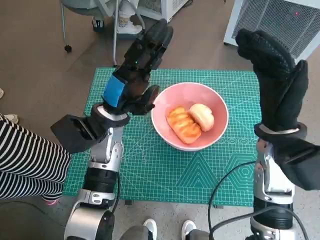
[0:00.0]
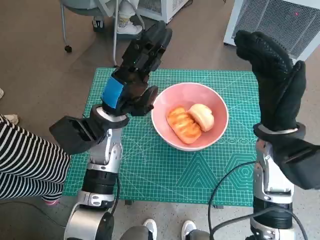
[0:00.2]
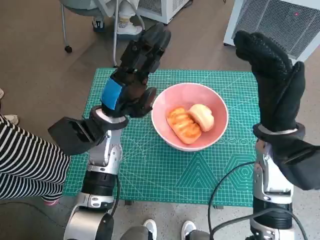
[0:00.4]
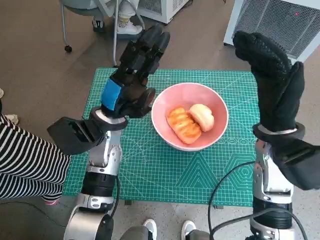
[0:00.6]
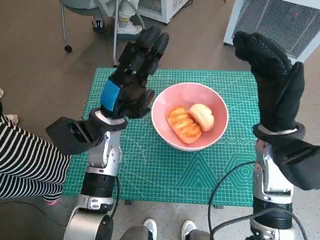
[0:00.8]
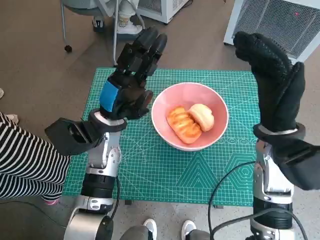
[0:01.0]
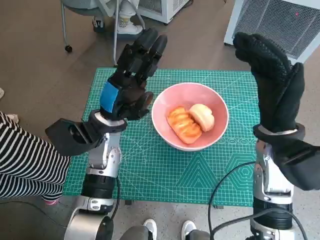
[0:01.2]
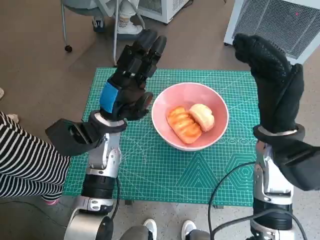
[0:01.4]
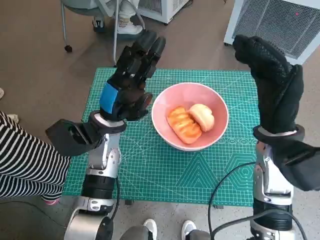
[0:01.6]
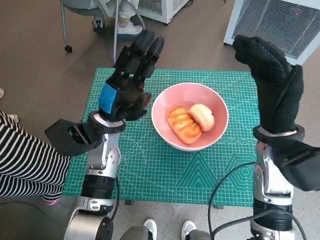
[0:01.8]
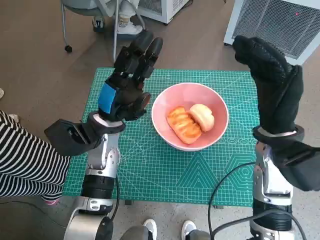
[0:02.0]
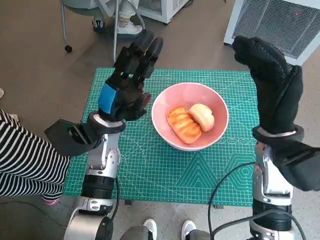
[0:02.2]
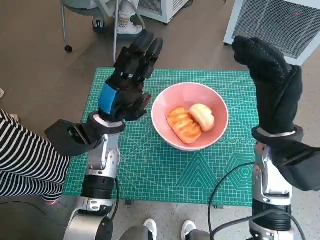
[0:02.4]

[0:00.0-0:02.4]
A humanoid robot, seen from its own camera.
Task of the whole recording: Push the bowl into the center of the table and put the bread into the bowl.
0:00.0 to 0:01.2: There are only small adjustments of the hands.
0:01.2 to 0:02.4: Both hands stay about where they are.

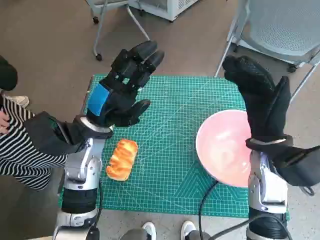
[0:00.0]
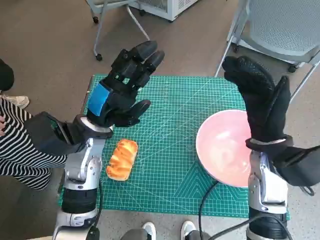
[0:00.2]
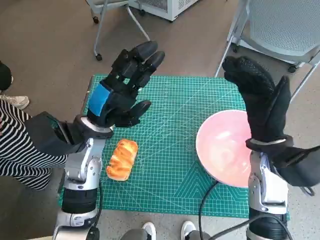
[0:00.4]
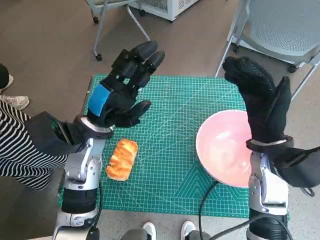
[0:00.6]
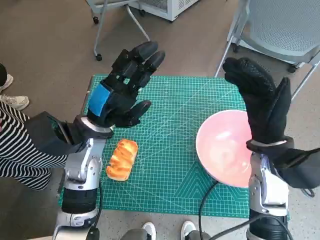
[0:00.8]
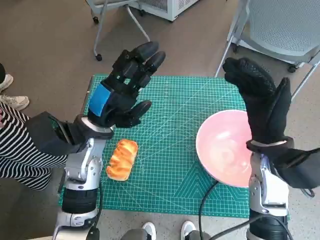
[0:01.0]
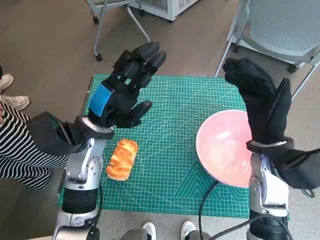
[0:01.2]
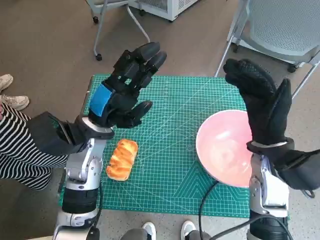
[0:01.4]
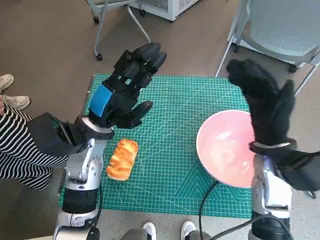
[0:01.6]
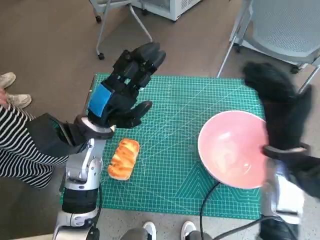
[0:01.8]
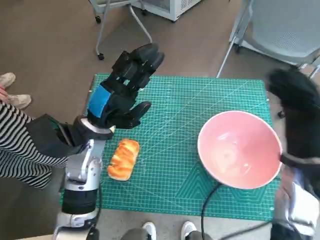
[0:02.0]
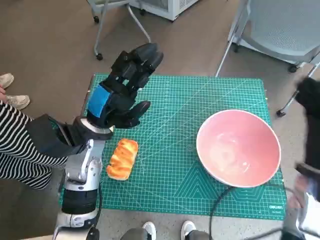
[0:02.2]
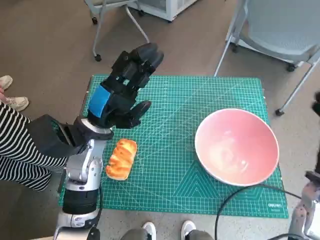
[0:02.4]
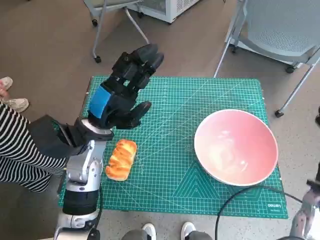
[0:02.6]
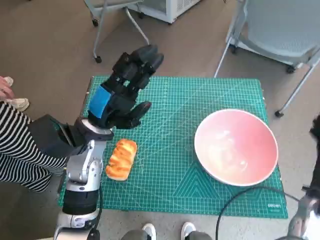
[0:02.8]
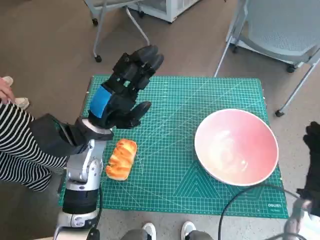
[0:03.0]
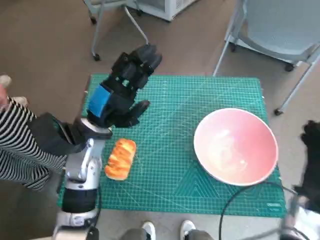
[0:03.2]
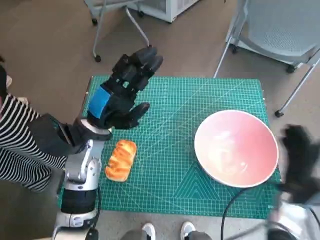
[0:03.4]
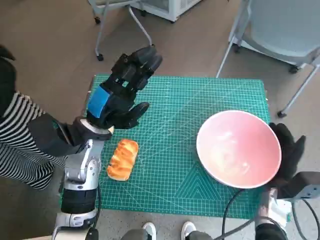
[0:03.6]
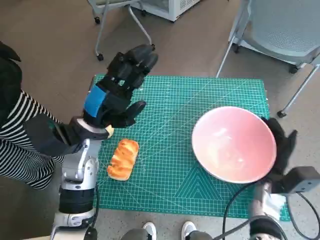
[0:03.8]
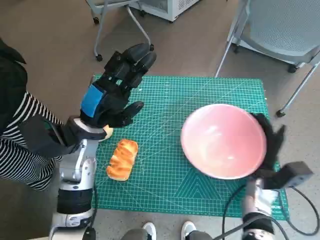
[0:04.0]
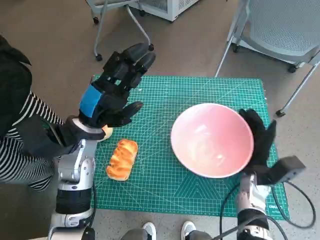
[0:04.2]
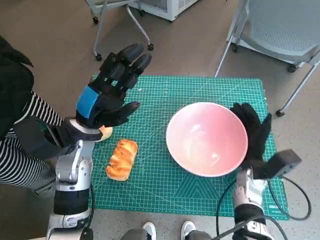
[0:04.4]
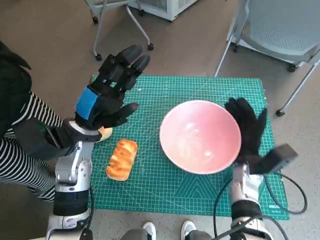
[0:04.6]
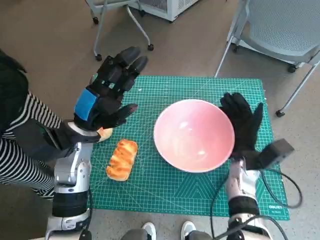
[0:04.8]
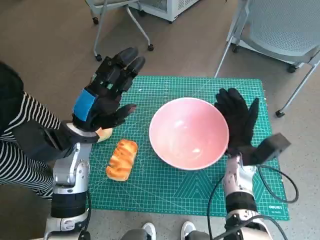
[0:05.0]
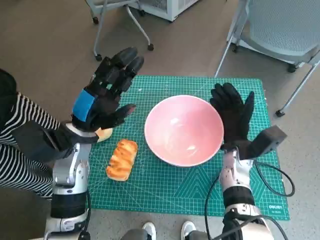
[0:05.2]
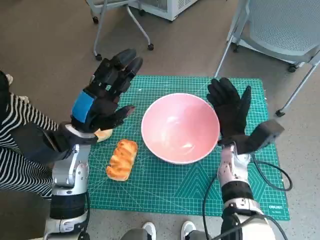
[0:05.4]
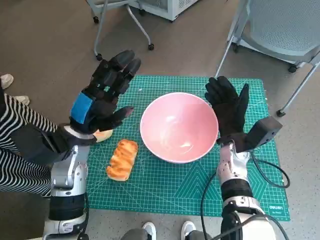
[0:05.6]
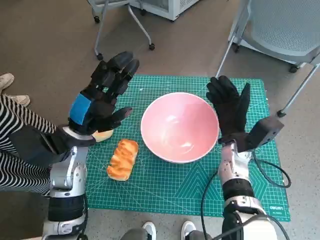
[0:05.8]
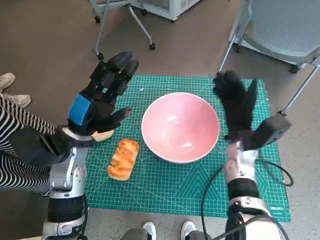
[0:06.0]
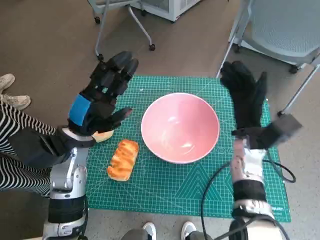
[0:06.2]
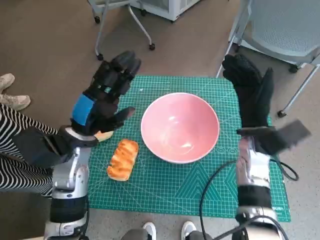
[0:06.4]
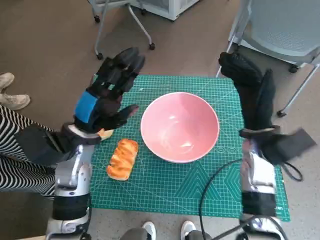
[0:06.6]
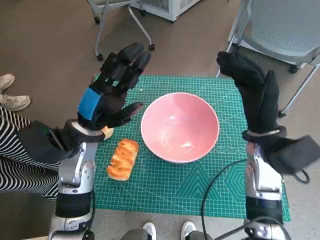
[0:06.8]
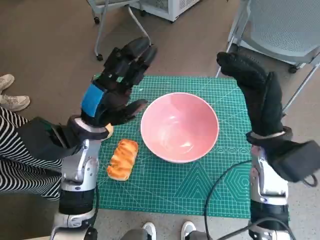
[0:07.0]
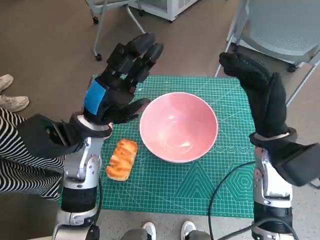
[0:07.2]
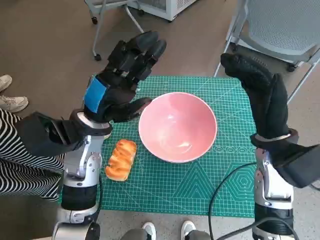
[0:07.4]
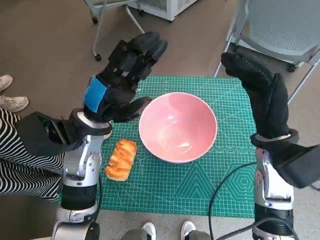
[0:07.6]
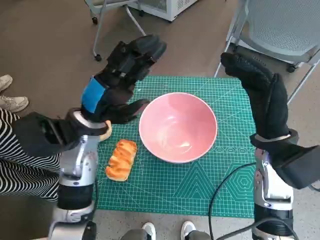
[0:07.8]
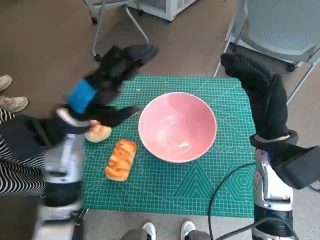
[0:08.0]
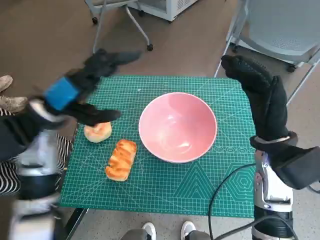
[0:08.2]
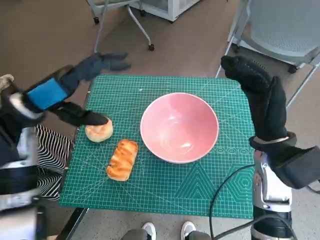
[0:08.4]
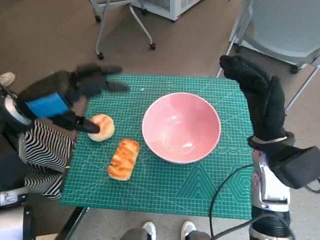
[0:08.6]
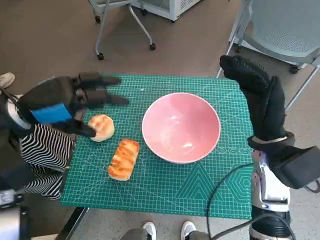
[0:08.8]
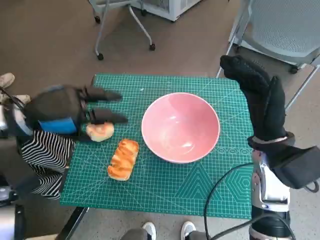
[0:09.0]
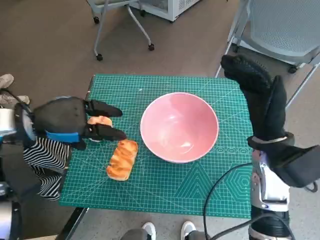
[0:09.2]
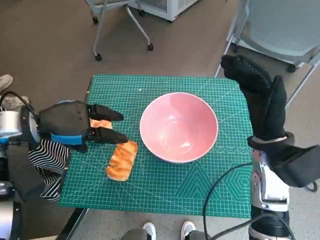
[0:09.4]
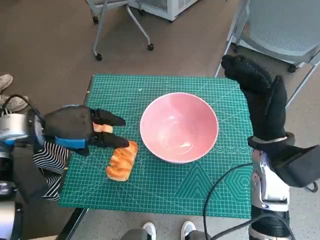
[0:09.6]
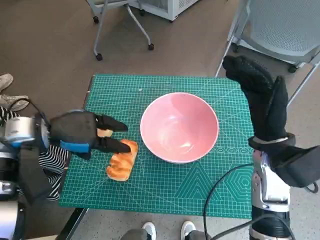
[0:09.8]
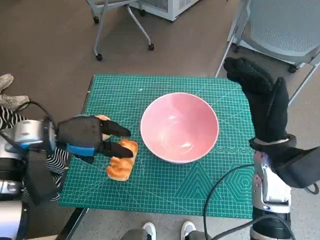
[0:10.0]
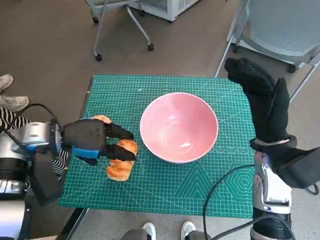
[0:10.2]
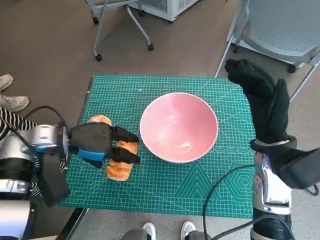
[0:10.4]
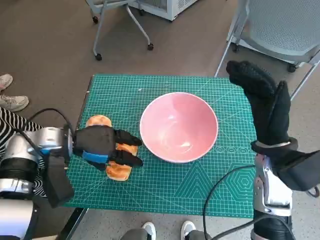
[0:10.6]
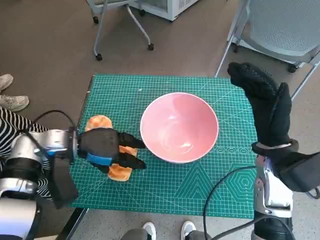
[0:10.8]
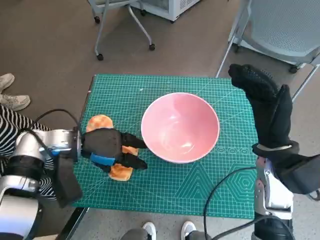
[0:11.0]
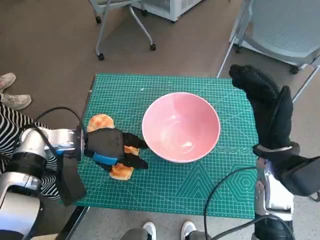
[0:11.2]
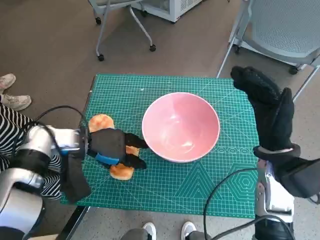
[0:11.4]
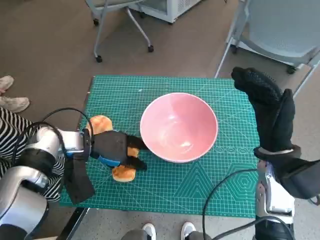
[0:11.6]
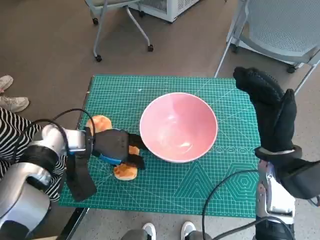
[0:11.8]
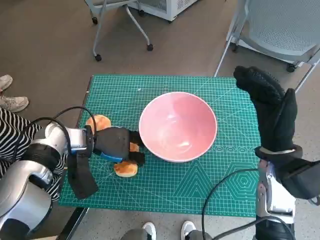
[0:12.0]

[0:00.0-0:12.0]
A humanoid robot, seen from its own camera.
Task of the whole recording: Push the bowl into the center of the table and put the bread into the bowl.
Step, 0:00.0 to 0:06.0: Move the pink bowl to the center of table with right hand.
0:01.6 to 0:03.0: The right hand is displaced to the right, downward and backward by roughly 15 cm.
0:03.0 to 0:04.4: The right hand goes roughly 10 cm to the left and forward.
0:04.4 to 0:06.0: The right hand goes roughly 5 cm upward.
0:06.0 to 0:07.6: The left hand shifts by roughly 5 cm. Meanwhile the right hand is displaced upward and backward by roughly 10 cm.
0:07.6 to 0:09.0: The left hand heads to the left, covering roughly 10 cm.
0:09.0 to 0:10.4: The left hand heads downward, covering some 5 cm.
0:10.4 to 0:12.0: The left hand is displaced downward by approximately 5 cm.

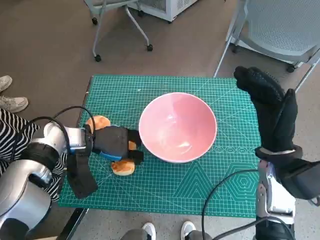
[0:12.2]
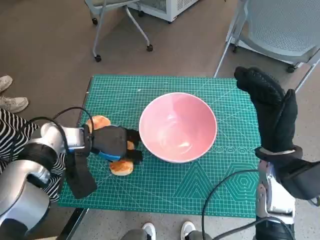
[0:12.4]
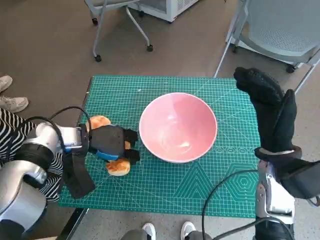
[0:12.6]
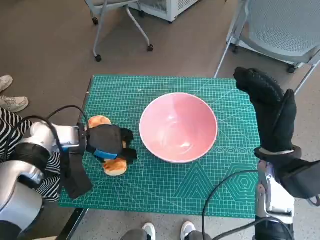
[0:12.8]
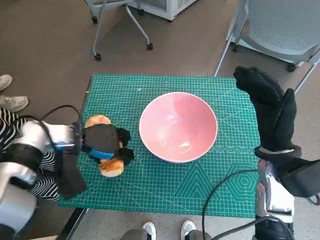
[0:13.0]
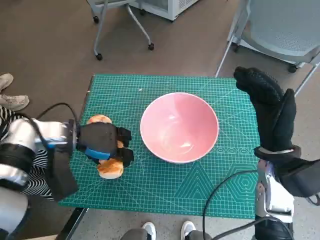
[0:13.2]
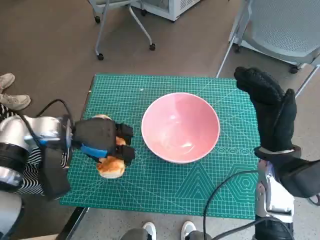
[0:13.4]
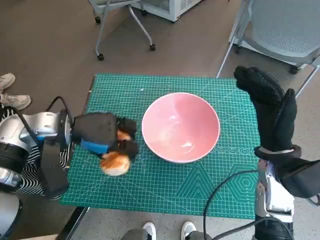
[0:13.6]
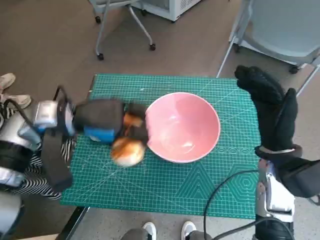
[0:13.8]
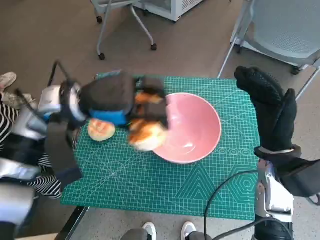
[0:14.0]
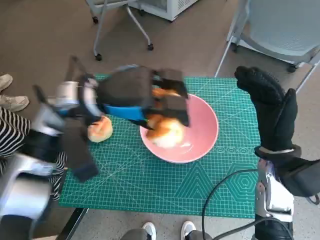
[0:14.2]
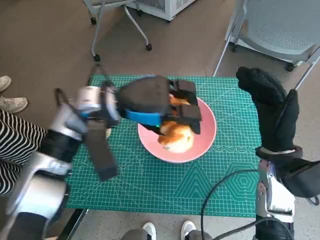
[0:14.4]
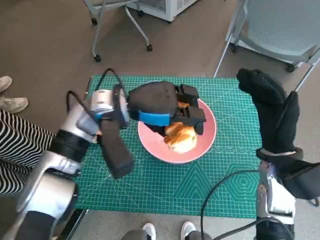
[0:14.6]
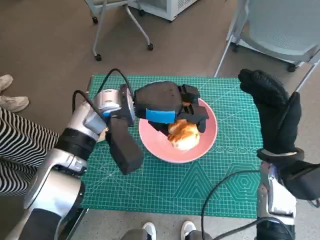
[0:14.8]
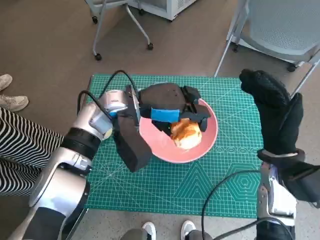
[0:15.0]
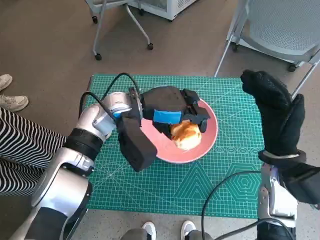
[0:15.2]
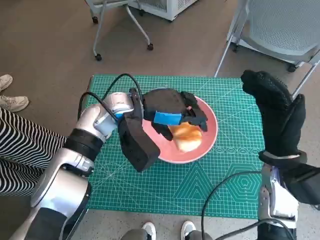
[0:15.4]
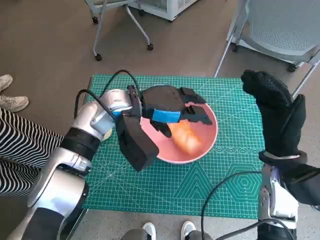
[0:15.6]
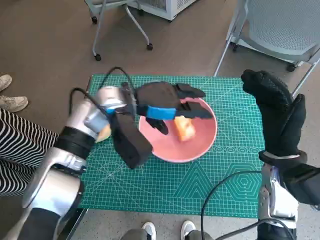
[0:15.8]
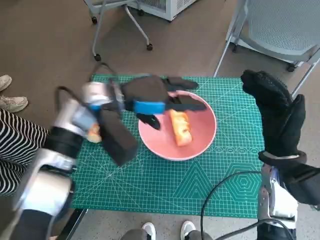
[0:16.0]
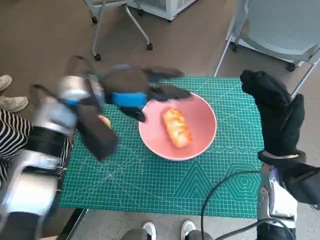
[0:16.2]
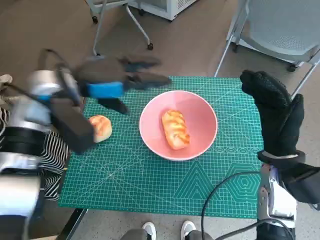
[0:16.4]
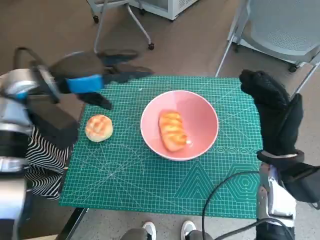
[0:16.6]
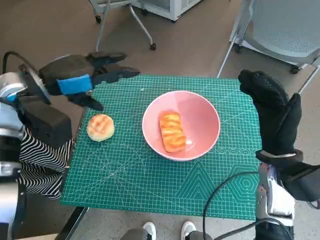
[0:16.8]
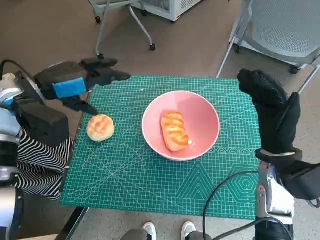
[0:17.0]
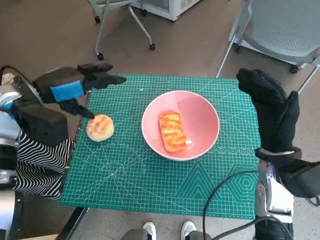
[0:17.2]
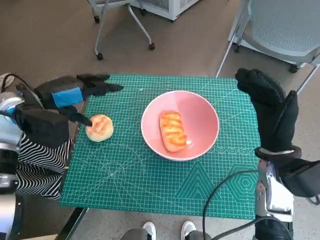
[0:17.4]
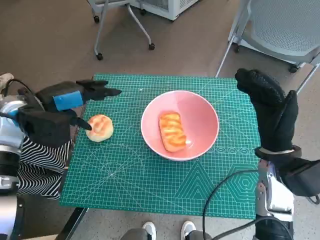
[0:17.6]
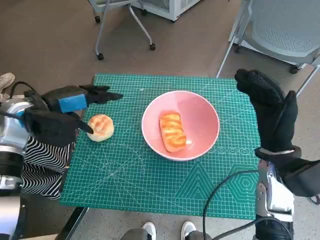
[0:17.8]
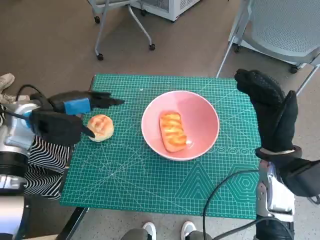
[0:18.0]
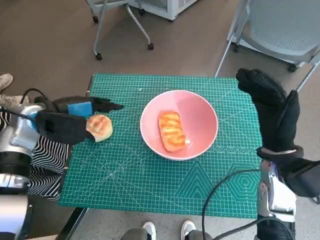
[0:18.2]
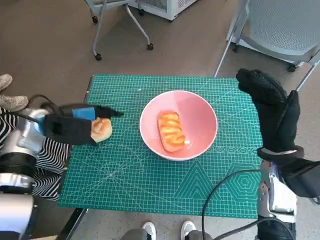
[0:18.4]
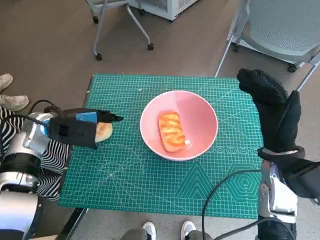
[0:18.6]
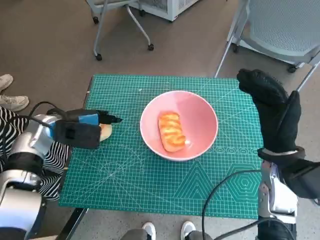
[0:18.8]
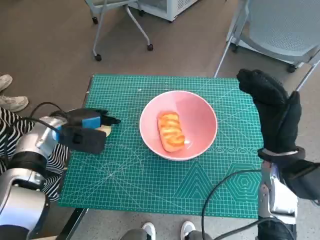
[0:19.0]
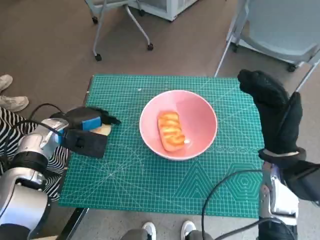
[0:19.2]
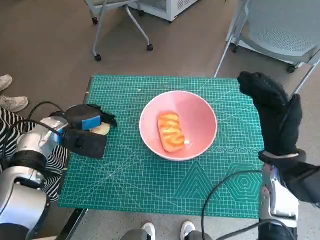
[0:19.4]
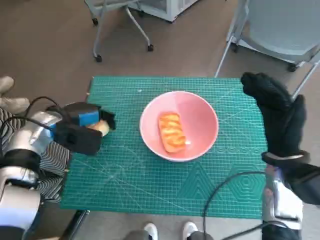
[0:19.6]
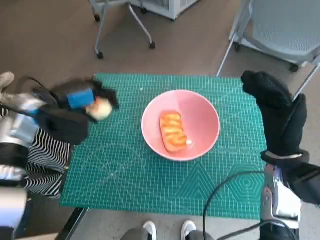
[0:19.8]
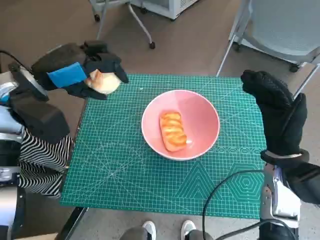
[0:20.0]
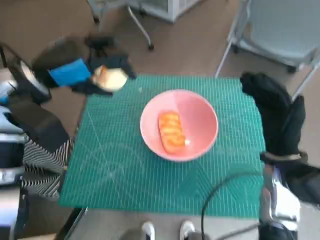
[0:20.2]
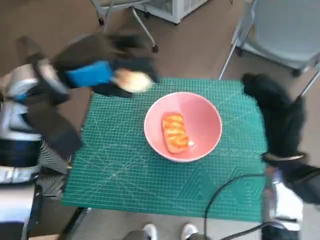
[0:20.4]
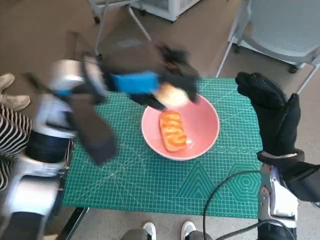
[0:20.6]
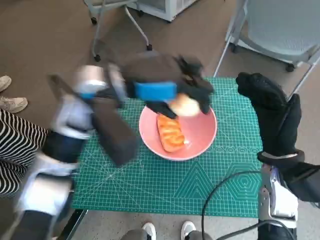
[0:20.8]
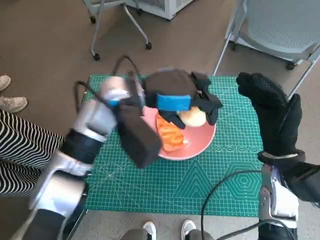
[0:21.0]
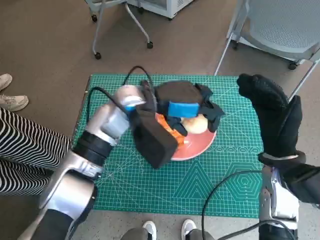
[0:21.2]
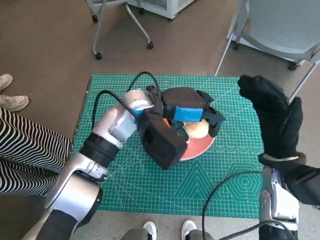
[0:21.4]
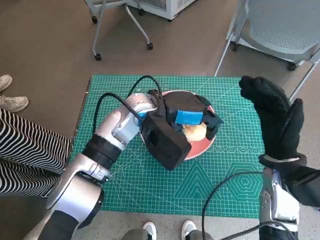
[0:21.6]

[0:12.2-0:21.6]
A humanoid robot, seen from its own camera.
Task of the whole recording: Push the bowl into the center of the table and put the bread into the bowl.
Step, 0:12.8 to 0:15.6: Place the long bread in pink bowl with left hand.
Step, 0:15.8 to 0:19.4: Grasp the round bread with left hand.
0:12.2 to 0:13.8: The left hand shifts about 10 cm upward.
0:13.8 to 0:15.4: The left hand is displaced to the right by approximately 10 cm.
0:15.4 to 0:17.0: The left hand heads to the left, covering some 15 cm.
0:17.0 to 0:18.4: The left hand heads downward, covering approximately 10 cm.
0:18.4 to 0:20.0: The left hand goes some 5 cm upward.
0:20.0 to 0:21.6: The left hand heads to the right, covering about 20 cm.
